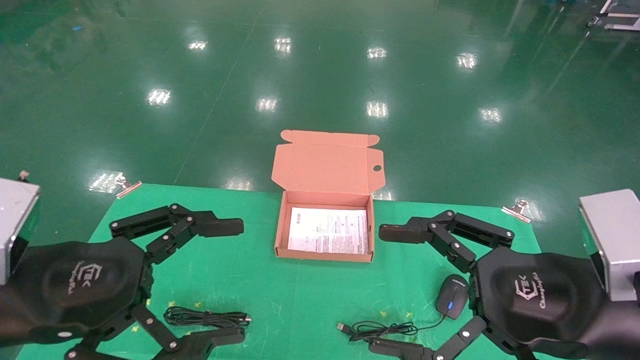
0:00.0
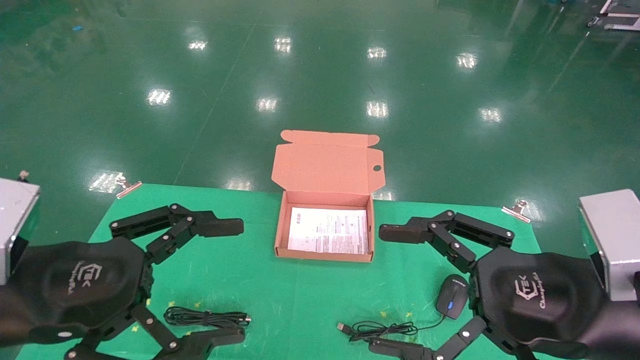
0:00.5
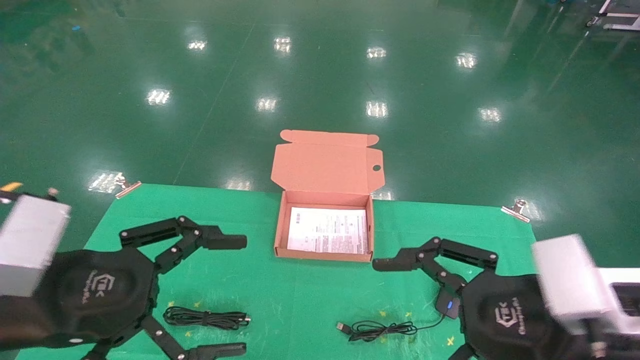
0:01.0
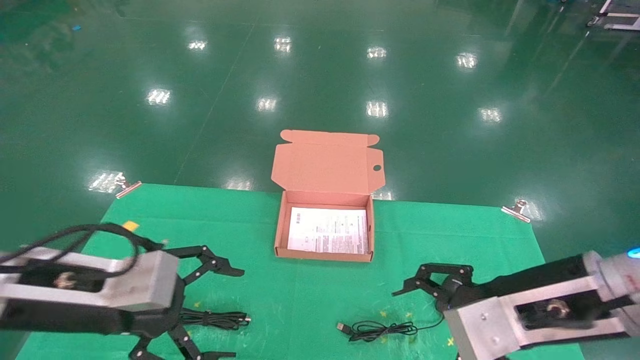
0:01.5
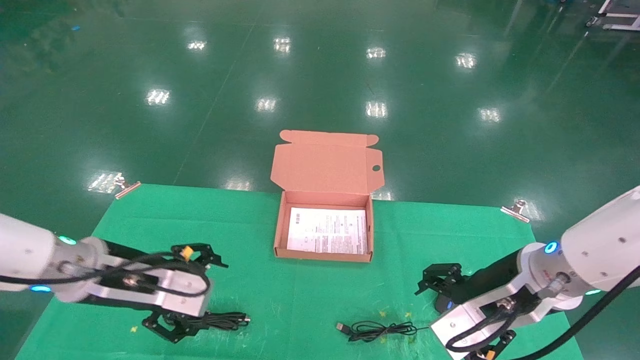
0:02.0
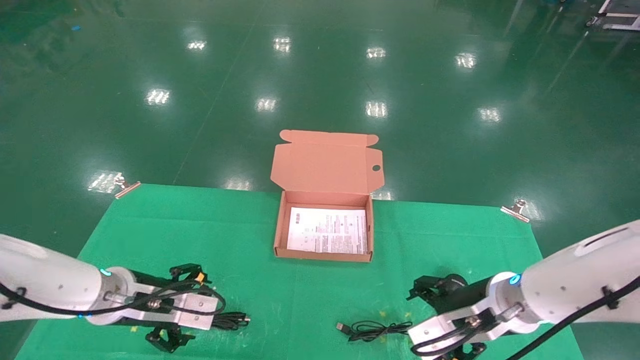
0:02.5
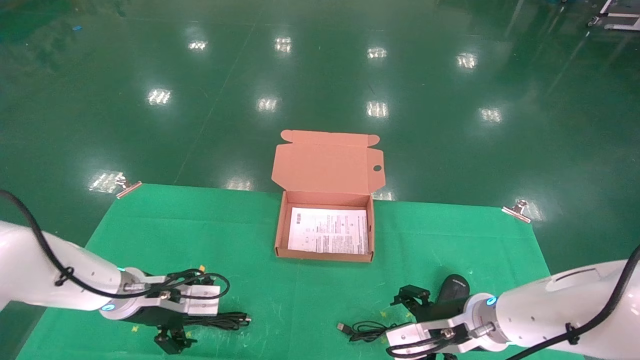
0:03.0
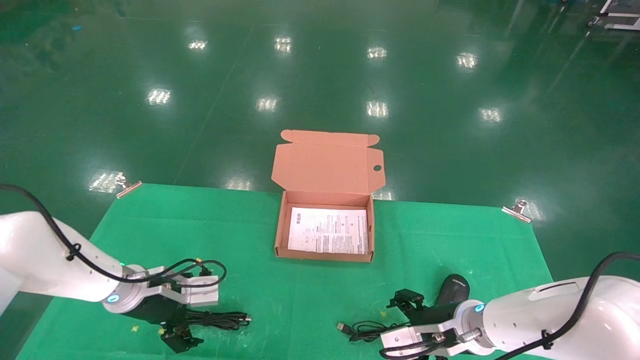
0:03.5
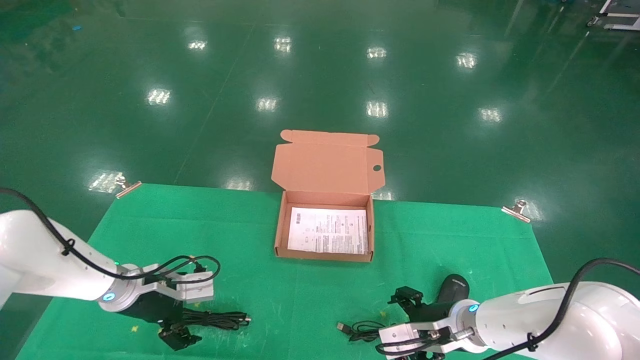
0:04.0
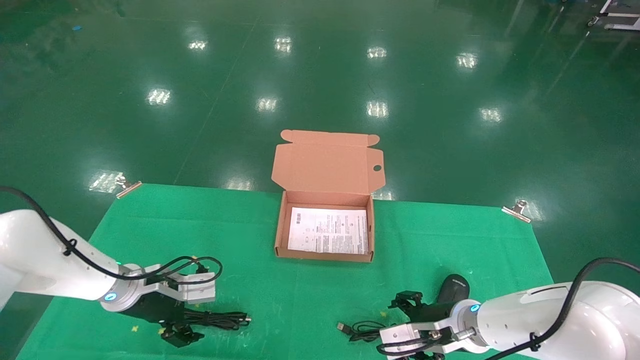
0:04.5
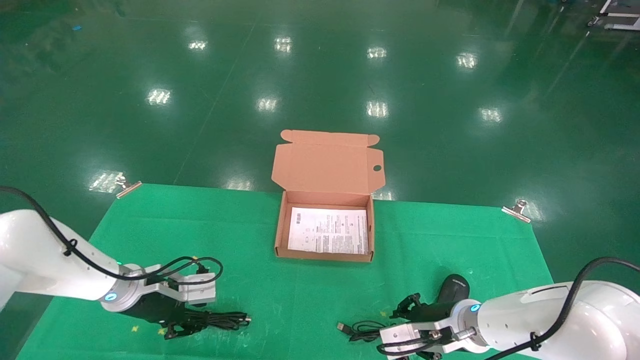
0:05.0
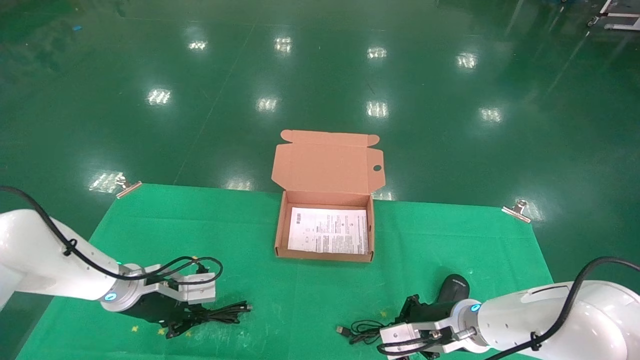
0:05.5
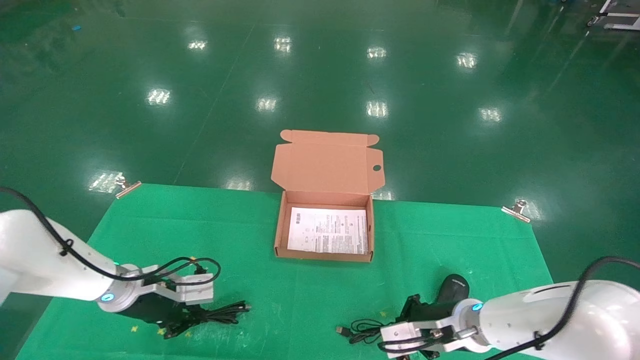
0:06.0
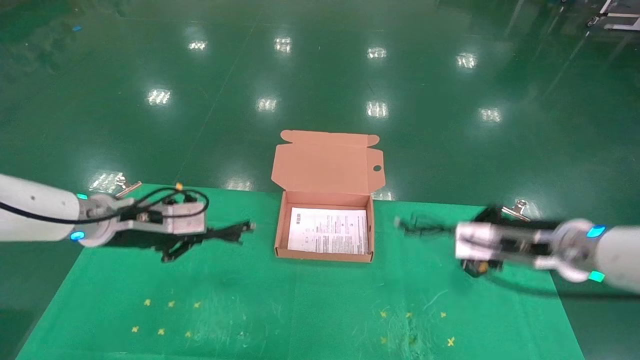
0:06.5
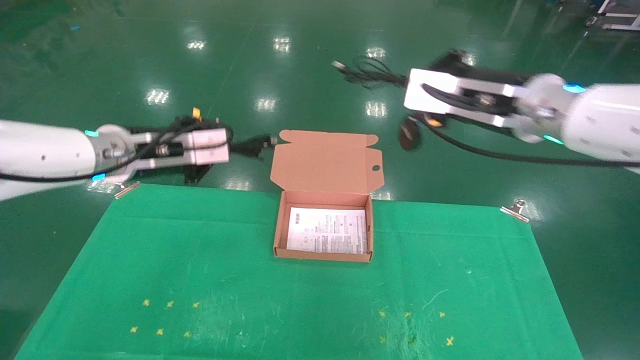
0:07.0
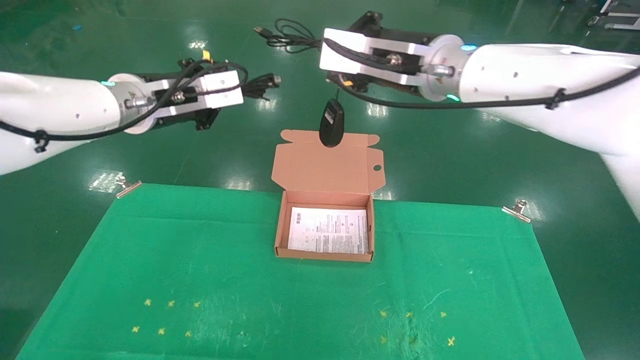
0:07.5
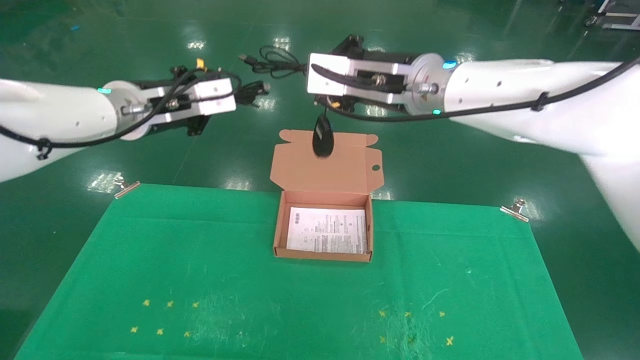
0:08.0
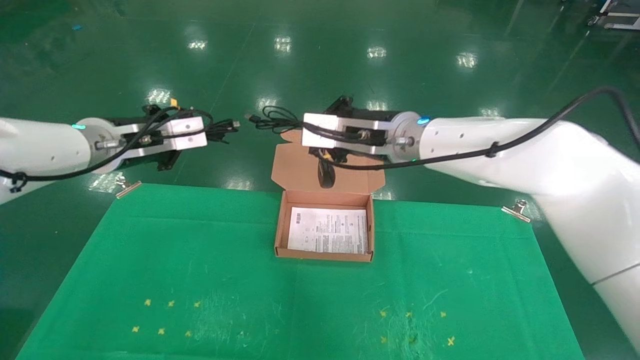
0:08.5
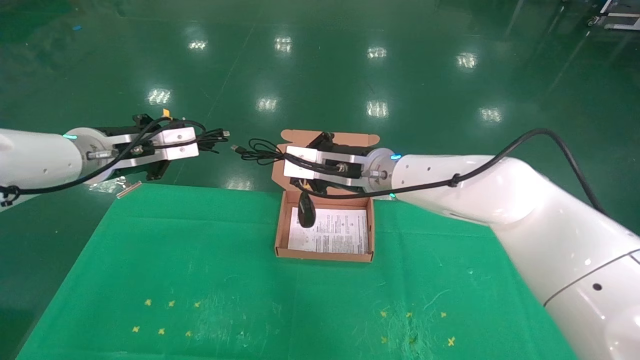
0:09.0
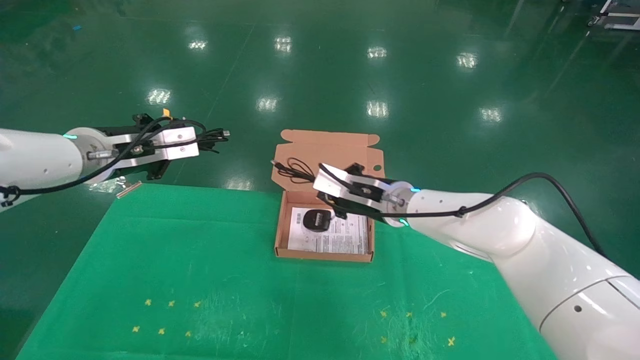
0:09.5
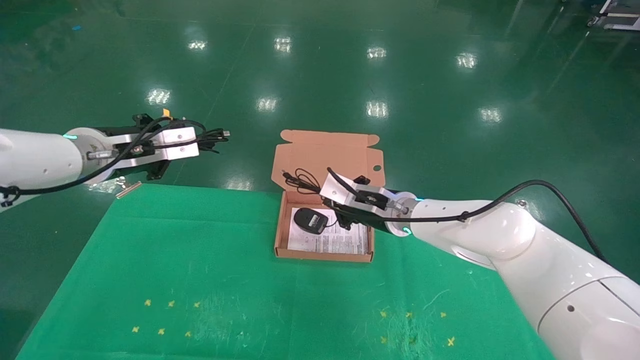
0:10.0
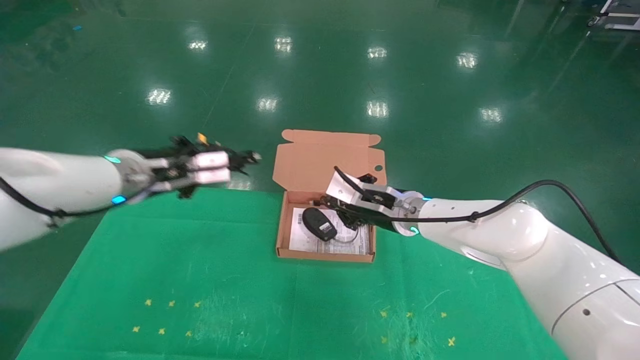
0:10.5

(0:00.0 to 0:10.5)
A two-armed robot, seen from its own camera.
Task of the whole recording: grasp data cable left put into box grasp mouse right put into box.
Step, 0:01.0 - 0:05.0: Grab and pick up both the mouse and power cord from the accessory packaging area at the same time.
0:00.0 - 0:02.0: The right gripper travels forward by approximately 10 cm; the left gripper shifts some 15 cm forward and downward.
0:02.0 - 0:04.0: The left gripper heads forward and downward, covering some 15 cm; the right gripper heads downward and forward, covering approximately 15 cm.
0:04.0 - 0:06.5: The right gripper heads upward and to the right, covering some 20 cm, and closes up; the left gripper shifts some 15 cm upward, and closes its fingers.
0:06.5 - 0:08.5: The right gripper travels to the left and upward by approximately 25 cm. Meanwhile the left gripper shifts approximately 10 cm upward.
0:08.5 - 0:10.5: The left gripper travels downward by roughly 5 cm; the right gripper moves downward, roughly 10 cm.

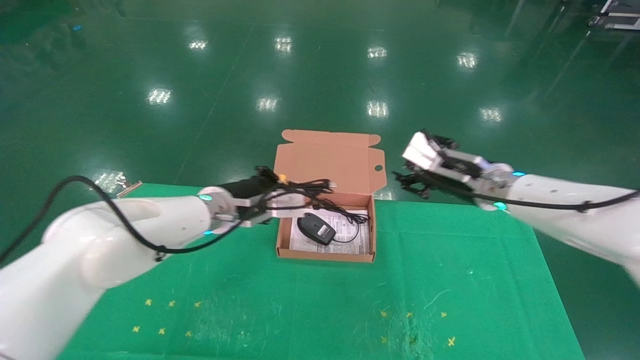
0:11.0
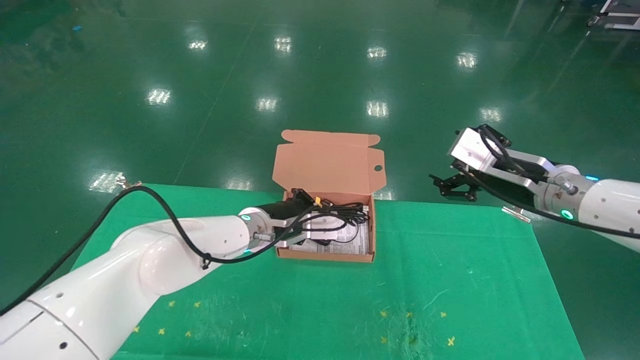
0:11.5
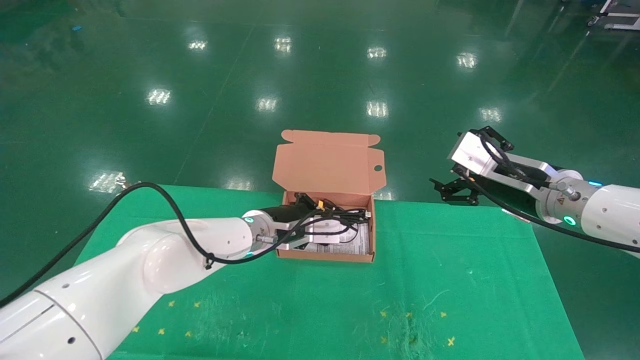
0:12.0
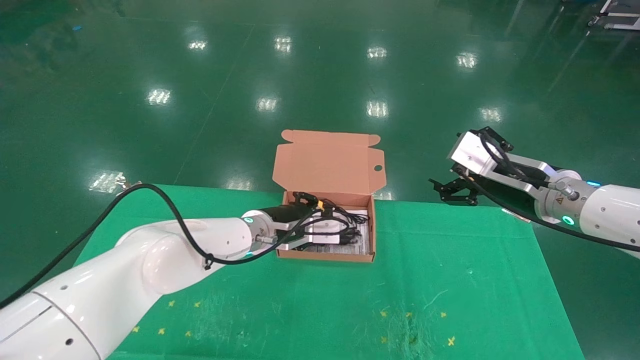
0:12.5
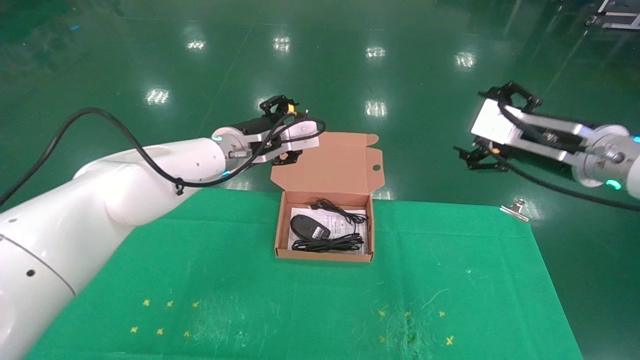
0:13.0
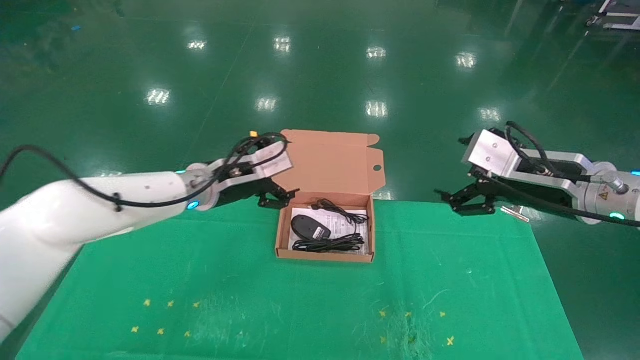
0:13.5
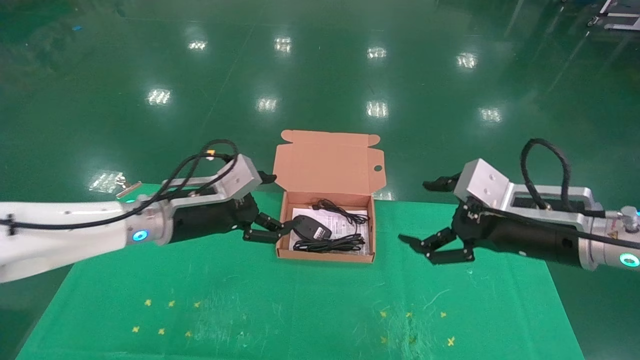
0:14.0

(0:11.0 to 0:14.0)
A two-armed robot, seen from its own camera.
Task of the whole recording: grasp data cable left put into box grasp mouse right put into box.
0:11.0 - 0:12.5: The left gripper changes place by roughly 5 cm. The right gripper goes approximately 10 cm backward and to the right, and opens its fingers.
0:12.5 - 0:14.0: The left gripper travels to the left and backward by about 15 cm, and opens. The right gripper shifts some 5 cm backward.
